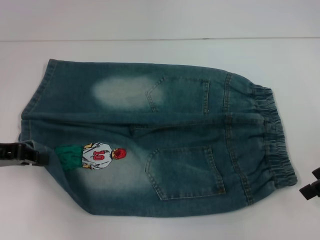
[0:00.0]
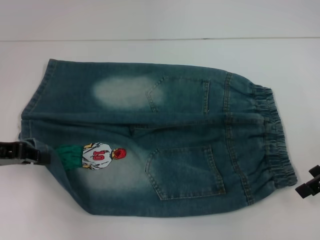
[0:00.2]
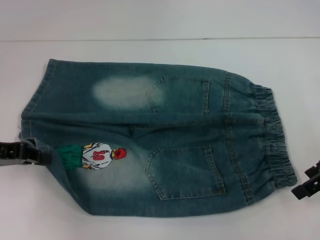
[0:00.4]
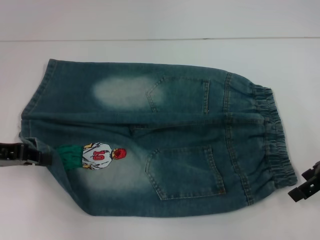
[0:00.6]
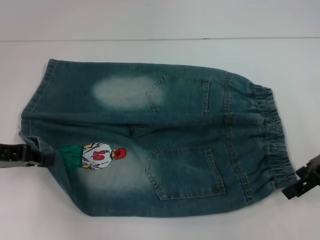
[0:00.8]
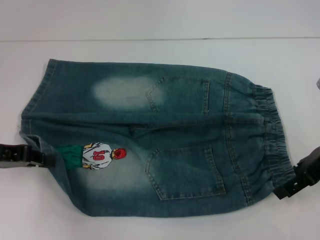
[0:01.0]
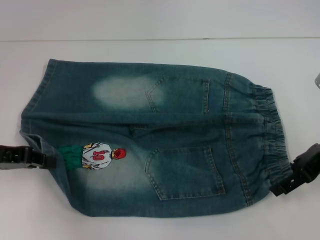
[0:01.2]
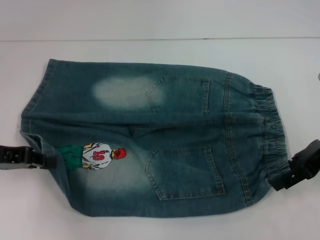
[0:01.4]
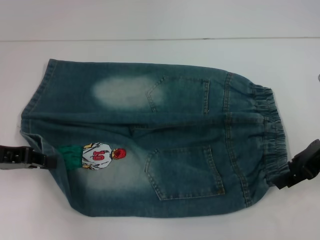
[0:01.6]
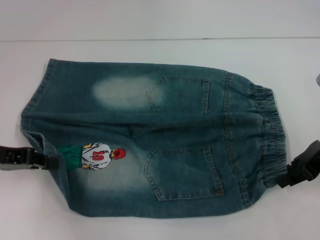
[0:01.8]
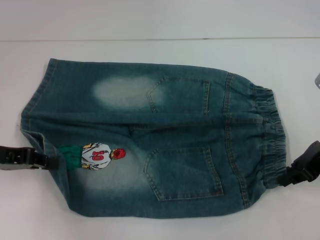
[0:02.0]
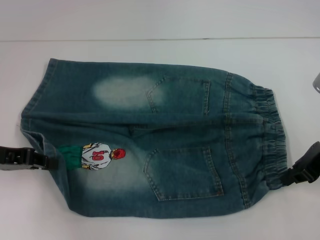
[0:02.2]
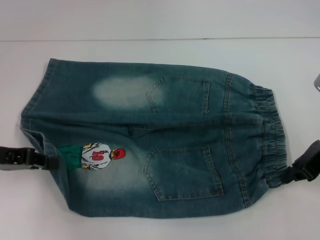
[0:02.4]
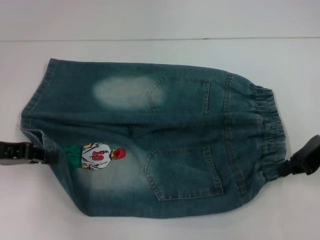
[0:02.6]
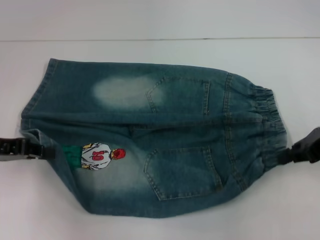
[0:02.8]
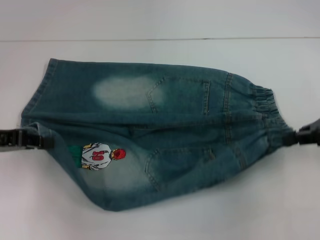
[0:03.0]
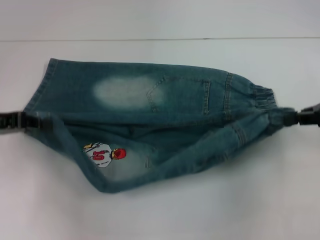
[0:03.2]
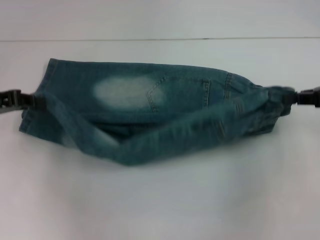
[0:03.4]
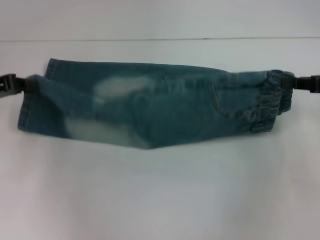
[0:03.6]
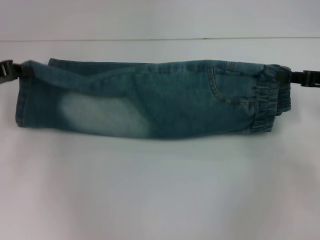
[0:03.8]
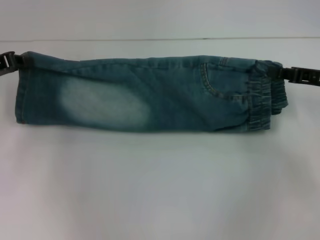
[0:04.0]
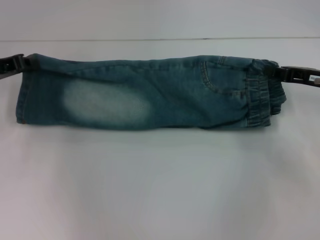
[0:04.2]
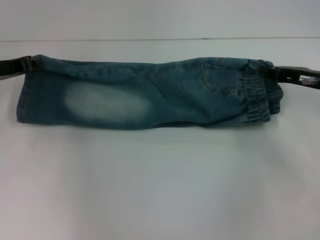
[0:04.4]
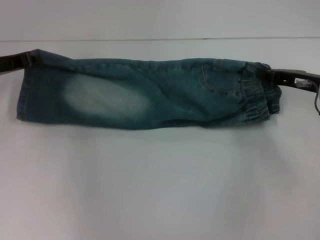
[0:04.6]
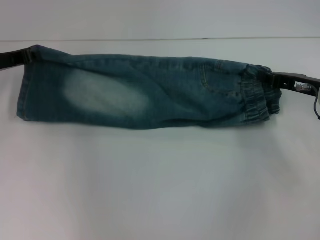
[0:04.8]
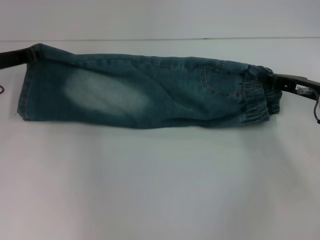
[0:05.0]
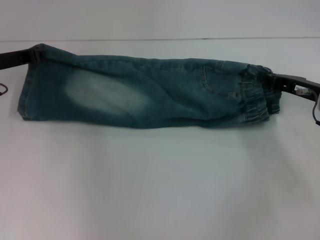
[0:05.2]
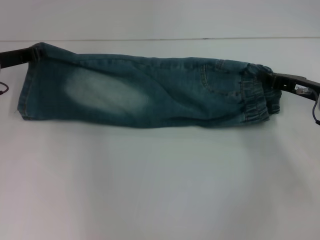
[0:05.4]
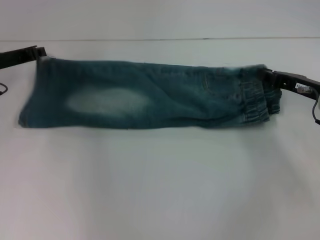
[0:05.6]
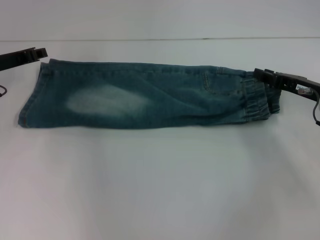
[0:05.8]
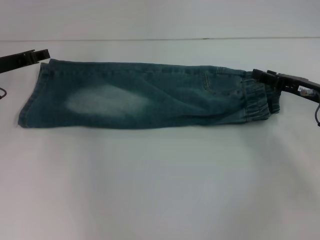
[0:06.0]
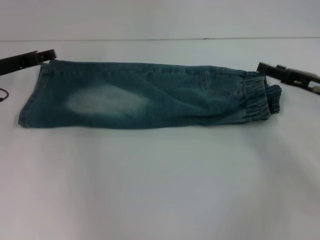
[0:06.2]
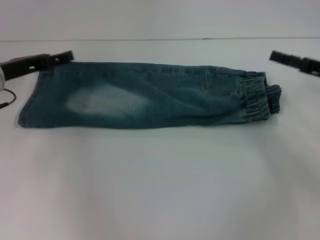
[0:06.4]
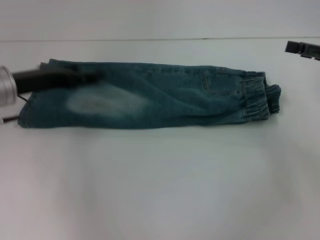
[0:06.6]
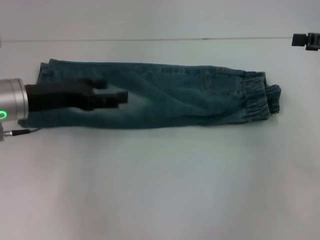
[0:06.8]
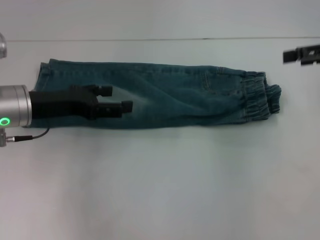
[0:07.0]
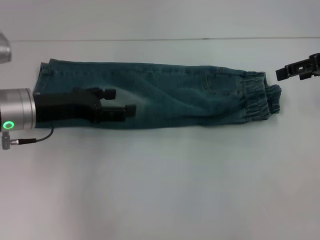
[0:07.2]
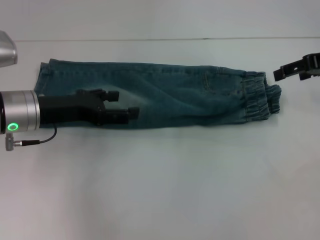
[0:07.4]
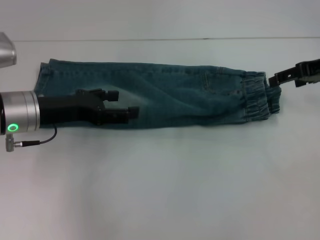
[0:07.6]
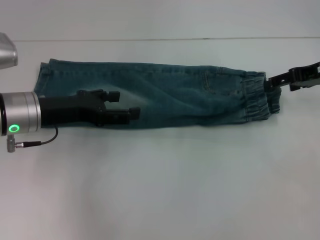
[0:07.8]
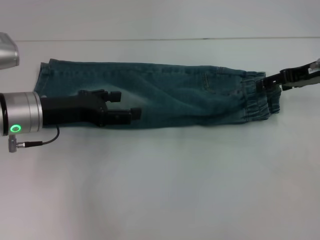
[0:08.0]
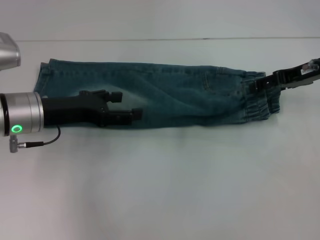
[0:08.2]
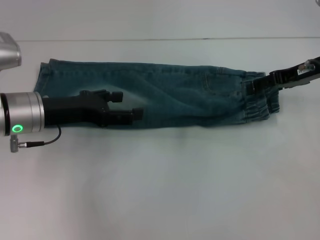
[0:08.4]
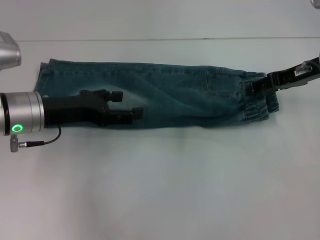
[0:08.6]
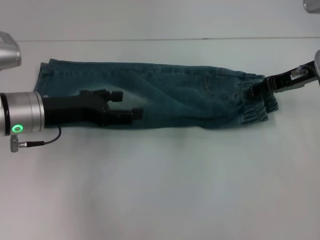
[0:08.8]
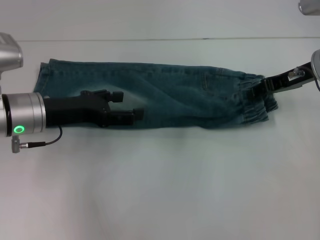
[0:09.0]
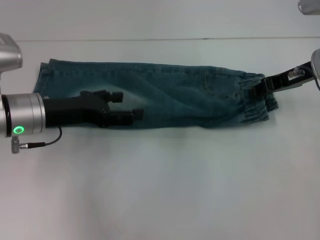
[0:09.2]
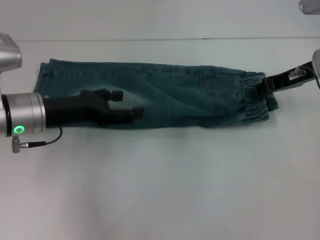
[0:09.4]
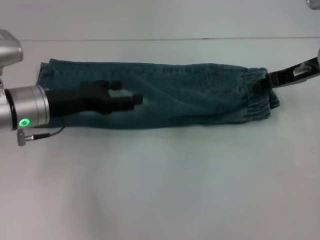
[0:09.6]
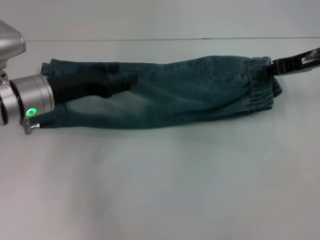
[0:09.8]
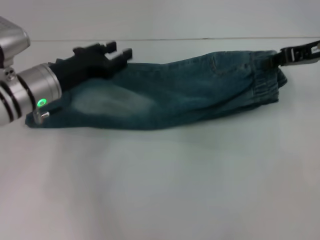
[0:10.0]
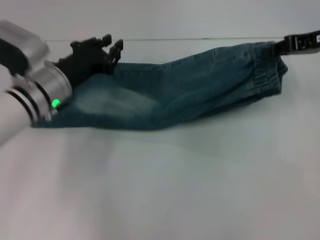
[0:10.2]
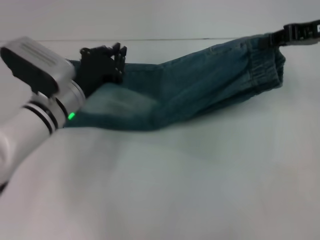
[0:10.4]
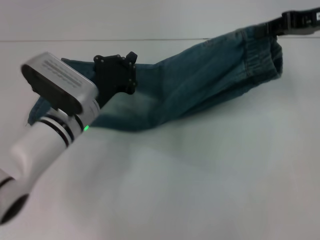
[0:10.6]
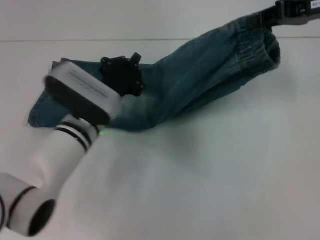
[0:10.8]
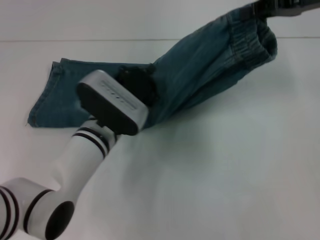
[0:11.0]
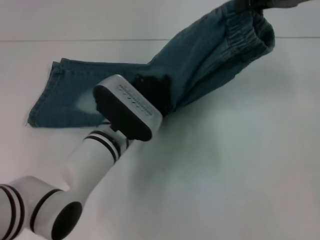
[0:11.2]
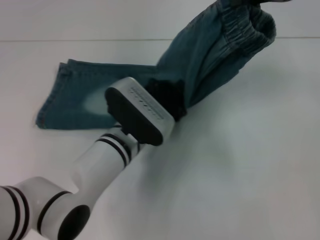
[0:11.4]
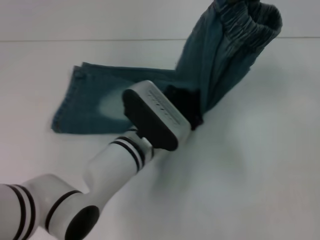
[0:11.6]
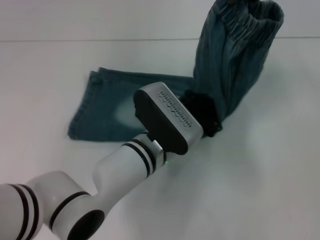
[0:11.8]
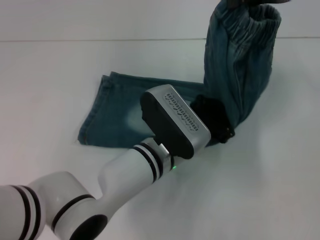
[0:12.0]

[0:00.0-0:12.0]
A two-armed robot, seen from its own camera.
Step, 0.0 to 2.2 s: Hold the lower right waistband with your right hand.
Step, 2.4 to 6.0 s: Fold upward with your right hand.
Step, 6.2 to 9.2 s: Grab the waistband with your right hand.
0.0 to 1.6 s: There are only small adjustments of the grippers.
1.6 to 3.0 s: The right gripper closes up.
3.0 to 4.4 s: The right gripper shifts approximately 10 cm downward and forward. Meanwhile the left gripper heads forward, covering about 10 cm.
4.4 to 6.0 s: The right gripper opens.
6.0 to 7.6 s: The right gripper goes approximately 10 cm upward, and opens up; the left gripper moves backward and to the right, about 10 cm, and opens up.
7.6 to 9.0 s: The right gripper shifts by roughly 5 cm.
9.0 to 10.4 s: The left gripper moves to the right, about 5 cm, and closes its fingers. The right gripper heads upward, covering some 5 cm, and closes.
10.4 to 12.0 s: The left gripper goes approximately 15 cm to the right and backward, and closes up, while the right gripper travels upward by roughly 5 cm.

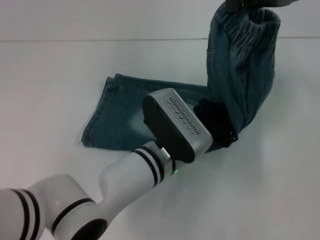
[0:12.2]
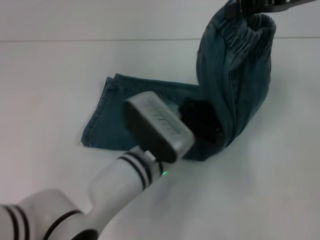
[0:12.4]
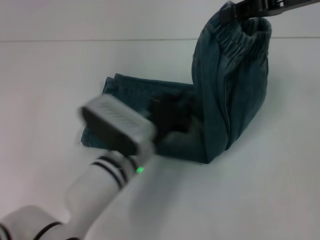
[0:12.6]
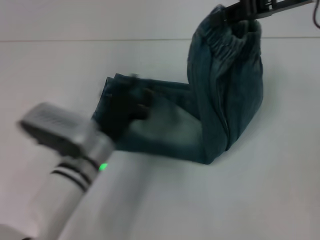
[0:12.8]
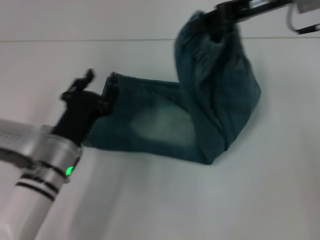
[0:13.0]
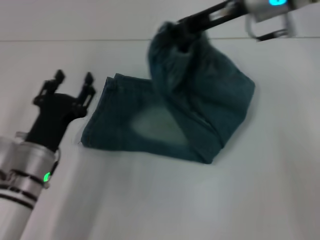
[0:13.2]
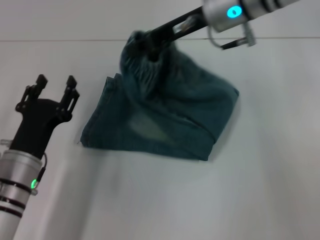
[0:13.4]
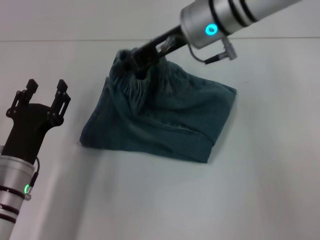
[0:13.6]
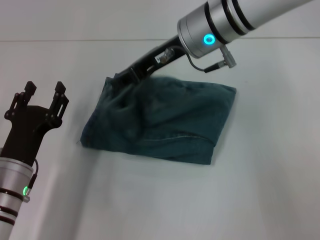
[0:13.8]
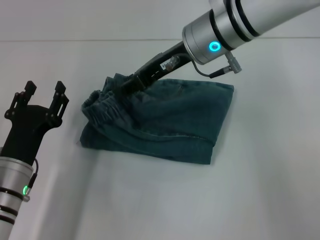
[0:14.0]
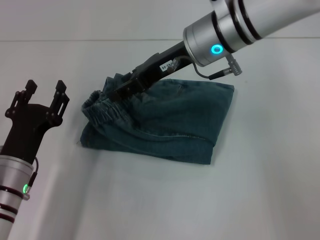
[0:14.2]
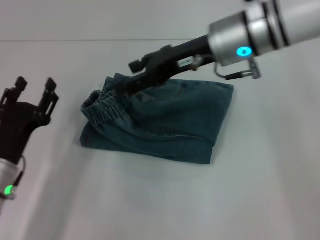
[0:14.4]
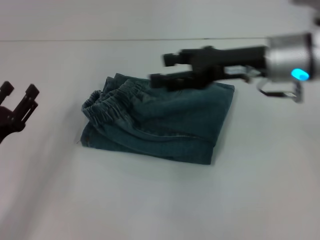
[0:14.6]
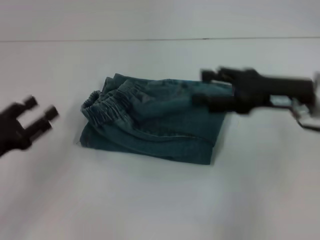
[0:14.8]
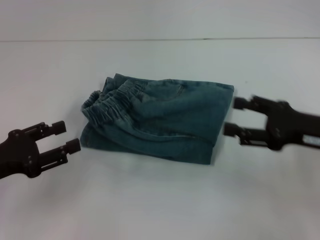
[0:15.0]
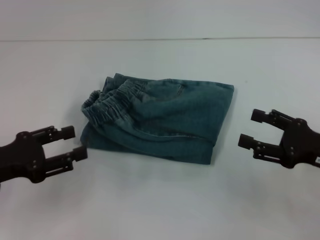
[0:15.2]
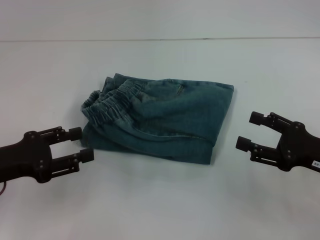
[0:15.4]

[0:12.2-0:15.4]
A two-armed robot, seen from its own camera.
Step, 12.8 to 14.4 s: Fold to the left with your right hand.
12.2 to 13.8 s: Both grippers travel together to the left, approximately 20 cm. The left gripper opens up.
13.8 to 15.4 s: The right gripper moves to the right, backward and downward, roughly 30 cm, and opens its fingers. The left gripper goes some 10 cm upward and to the left.

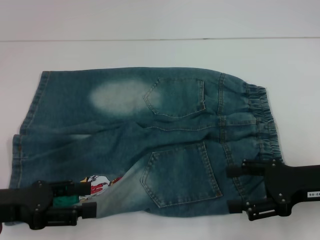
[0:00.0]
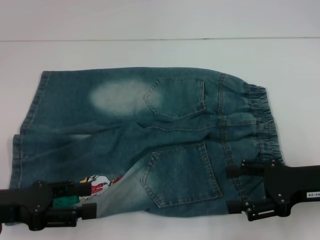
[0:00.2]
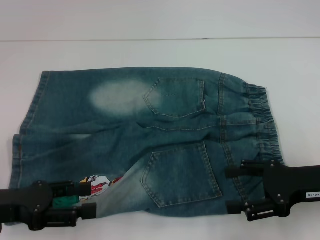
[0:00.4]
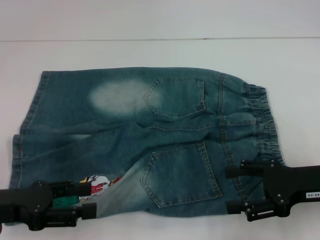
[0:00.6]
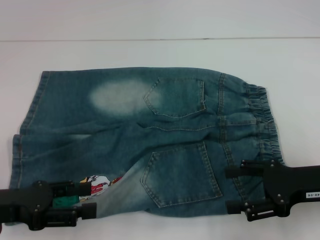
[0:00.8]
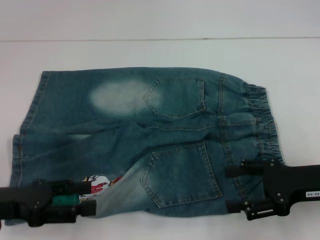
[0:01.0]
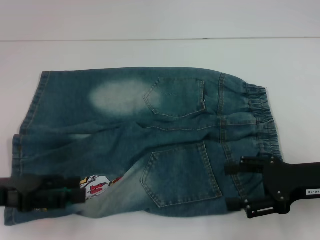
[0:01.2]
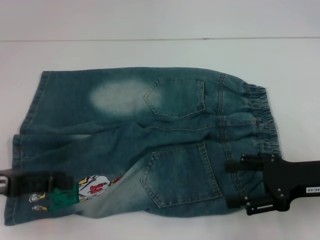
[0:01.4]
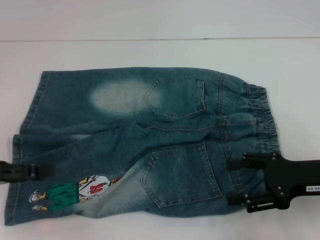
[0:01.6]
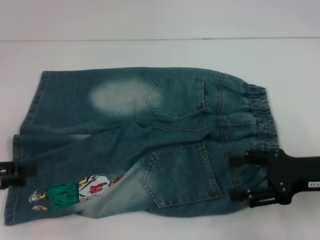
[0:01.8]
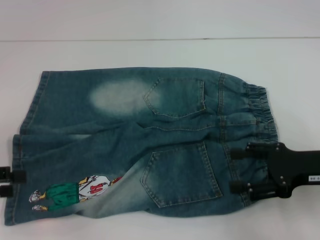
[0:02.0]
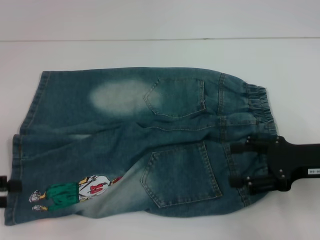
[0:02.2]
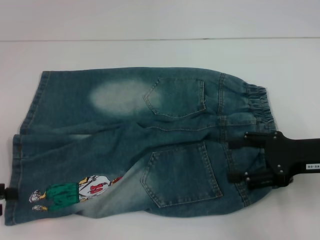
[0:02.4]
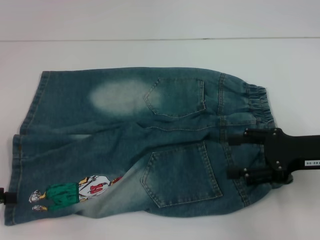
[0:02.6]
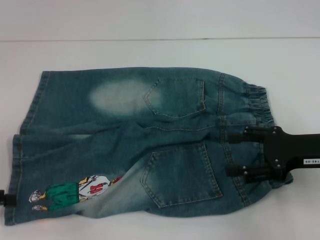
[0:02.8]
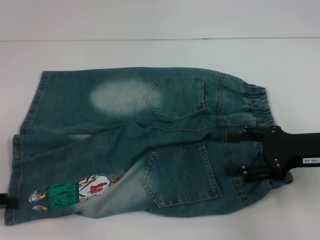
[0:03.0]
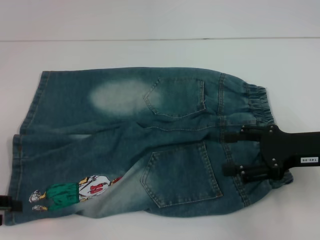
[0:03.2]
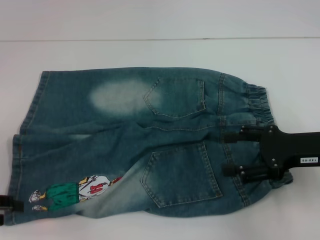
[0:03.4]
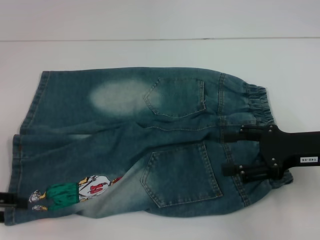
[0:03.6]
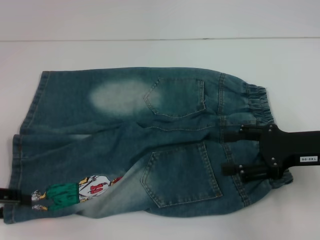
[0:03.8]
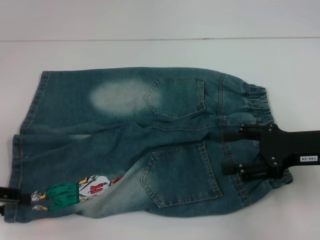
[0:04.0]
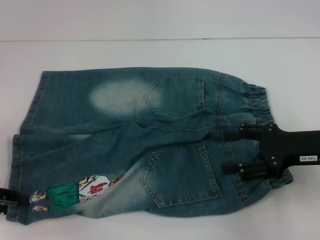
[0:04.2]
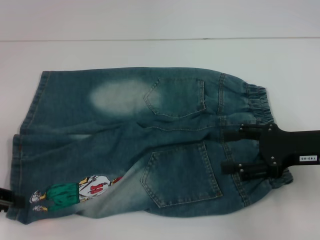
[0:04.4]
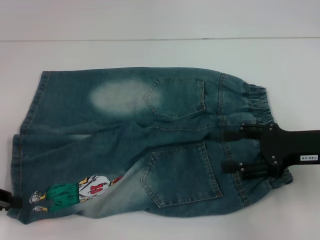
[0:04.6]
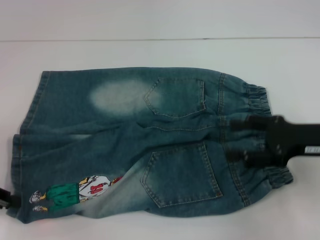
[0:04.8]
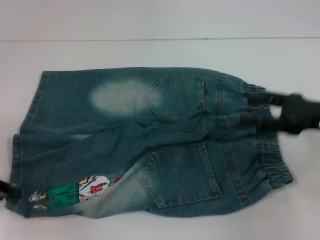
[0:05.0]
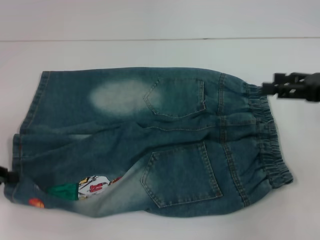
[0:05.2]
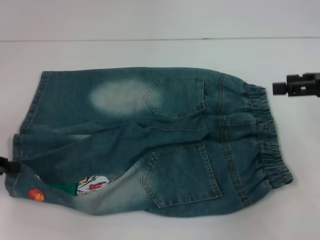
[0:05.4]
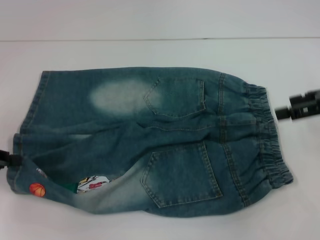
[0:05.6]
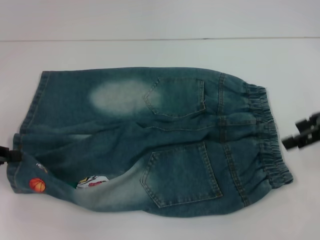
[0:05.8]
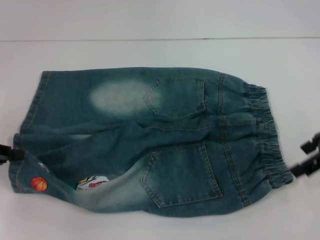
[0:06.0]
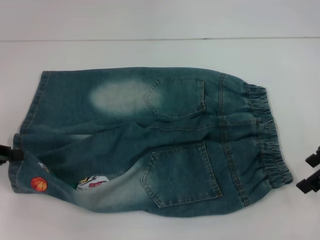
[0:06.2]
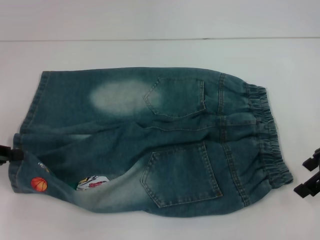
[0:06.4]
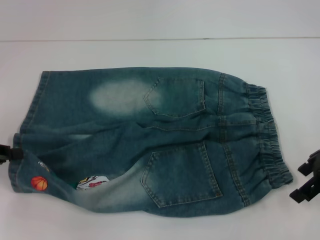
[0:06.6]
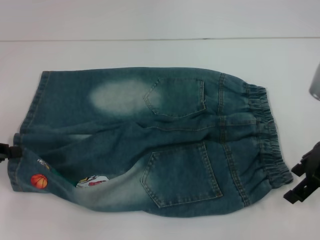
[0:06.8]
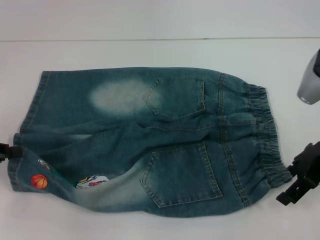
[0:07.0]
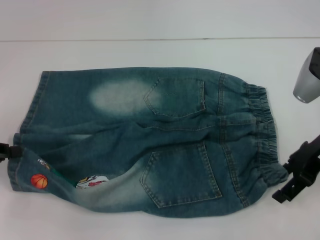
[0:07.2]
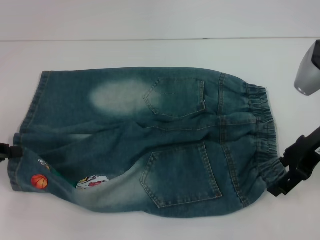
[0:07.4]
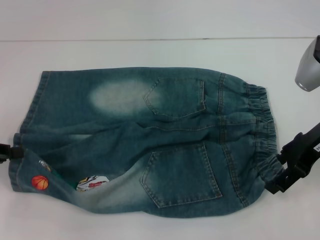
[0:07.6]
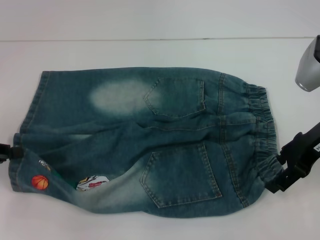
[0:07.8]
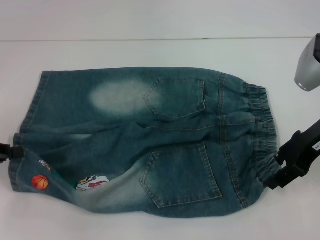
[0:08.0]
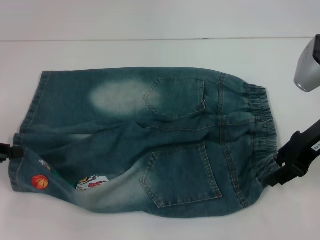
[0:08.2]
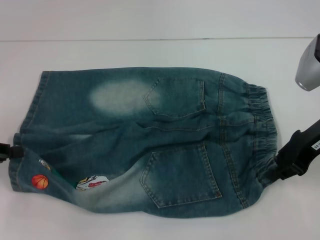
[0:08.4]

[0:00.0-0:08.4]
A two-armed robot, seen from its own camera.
Step, 0.0 to 4.6 s: Grab the lower left pant leg with your left hand.
Step, 5.0 to 8.2 s: Hold the lower right waistband with your right hand.
0.0 to 1.4 s: The grippers move only a little.
1.4 to 2.8 s: The left gripper heads to the left, covering about 5 cm.
2.8 to 4.2 s: The grippers stay close to where they were, moving slightly.
4.2 to 5.6 s: The left gripper closes its fingers. The right gripper travels upward and to the right by some 10 cm.
5.6 to 7.0 s: The right gripper travels to the left by about 5 cm.
7.0 to 8.4 s: The right gripper closes its fingers.
